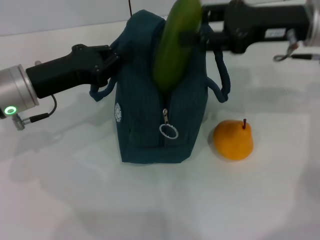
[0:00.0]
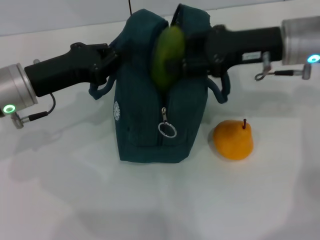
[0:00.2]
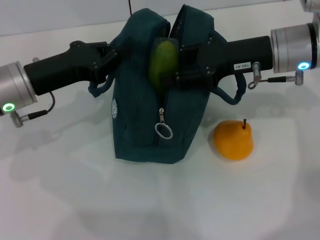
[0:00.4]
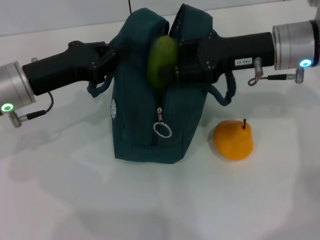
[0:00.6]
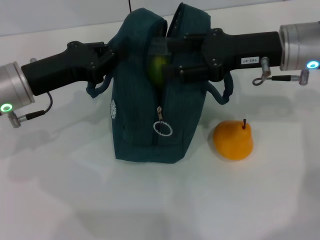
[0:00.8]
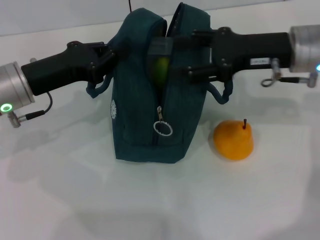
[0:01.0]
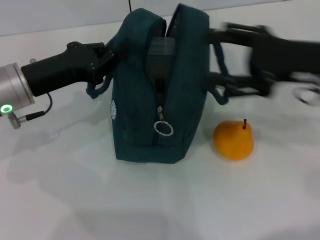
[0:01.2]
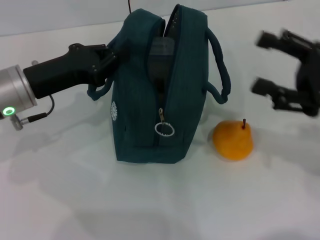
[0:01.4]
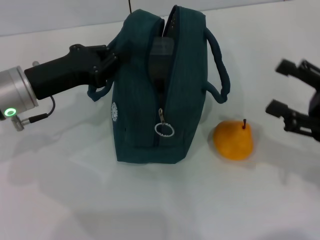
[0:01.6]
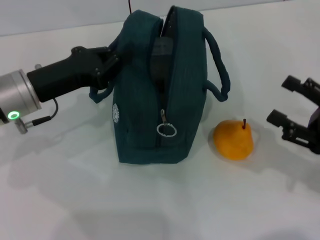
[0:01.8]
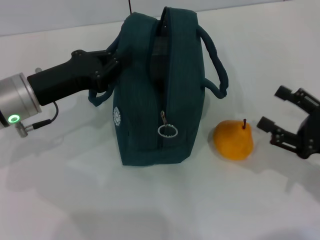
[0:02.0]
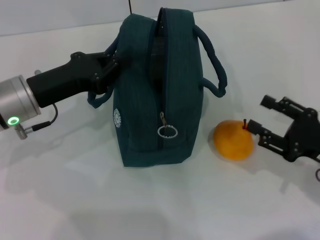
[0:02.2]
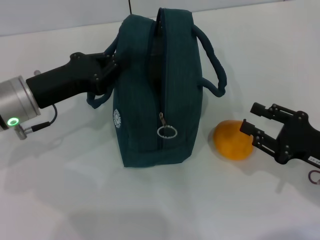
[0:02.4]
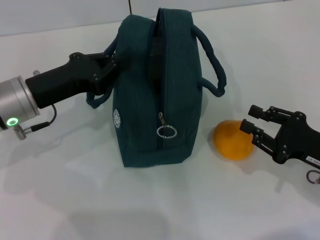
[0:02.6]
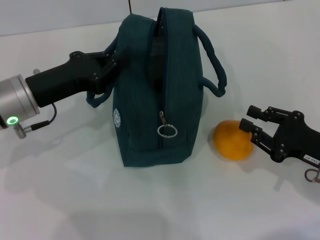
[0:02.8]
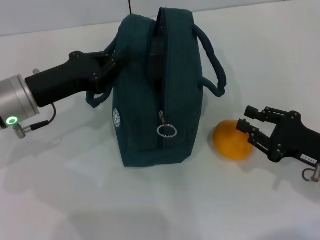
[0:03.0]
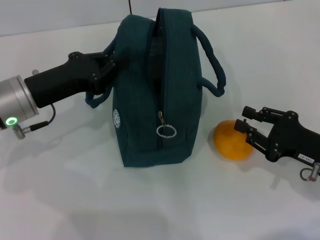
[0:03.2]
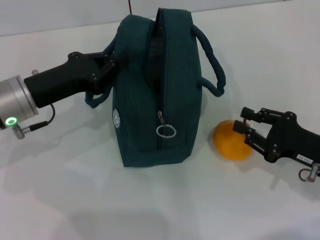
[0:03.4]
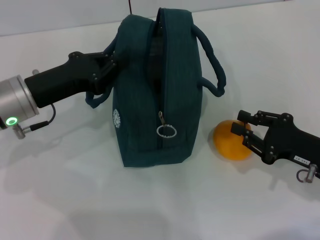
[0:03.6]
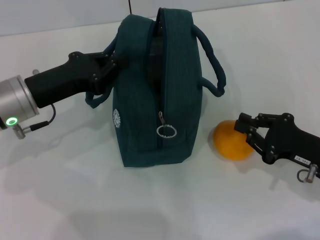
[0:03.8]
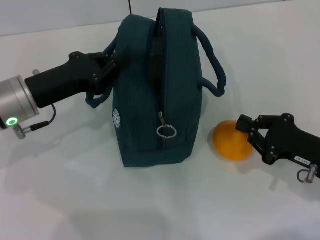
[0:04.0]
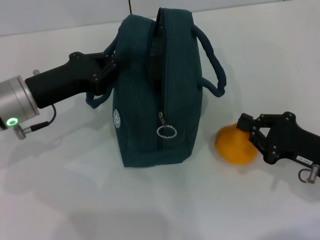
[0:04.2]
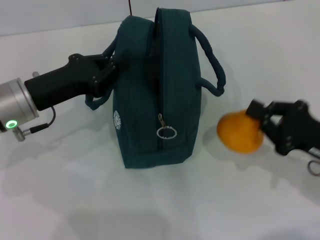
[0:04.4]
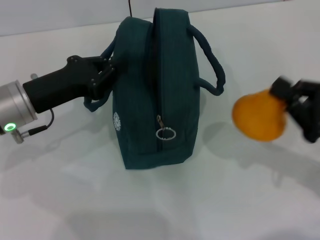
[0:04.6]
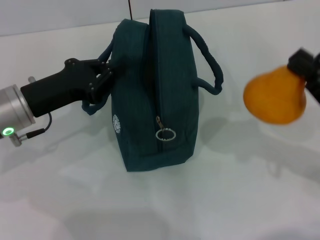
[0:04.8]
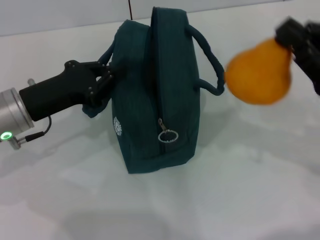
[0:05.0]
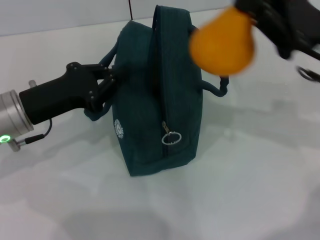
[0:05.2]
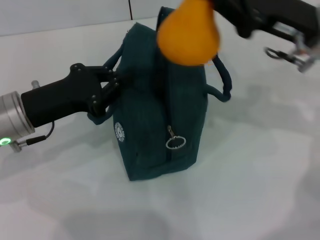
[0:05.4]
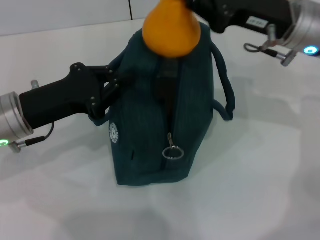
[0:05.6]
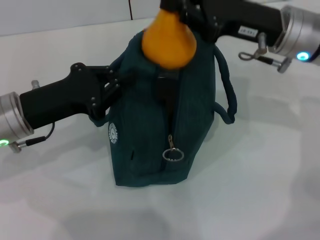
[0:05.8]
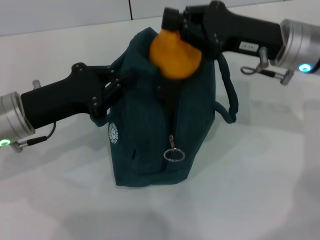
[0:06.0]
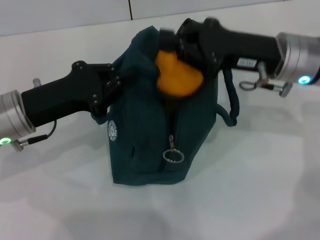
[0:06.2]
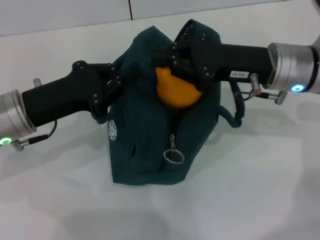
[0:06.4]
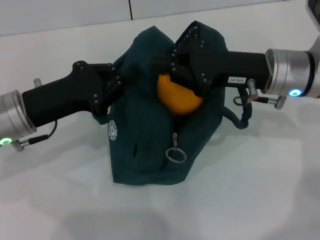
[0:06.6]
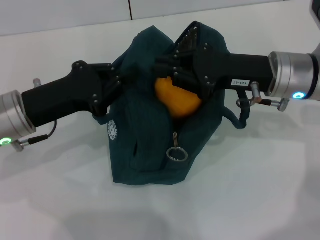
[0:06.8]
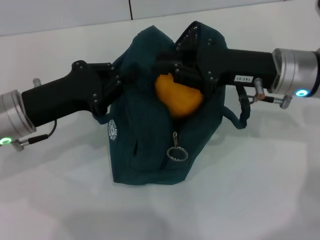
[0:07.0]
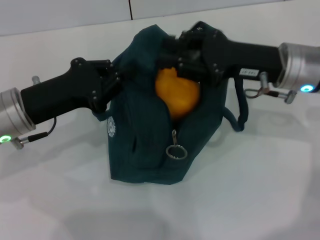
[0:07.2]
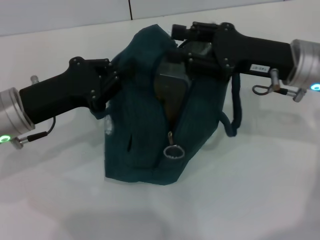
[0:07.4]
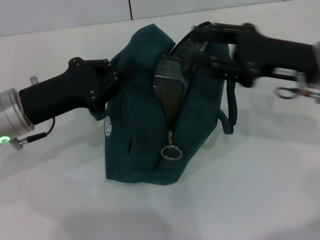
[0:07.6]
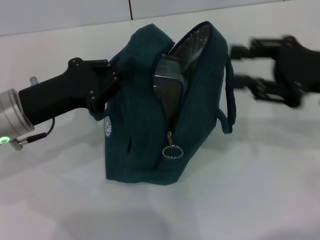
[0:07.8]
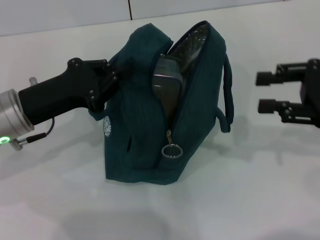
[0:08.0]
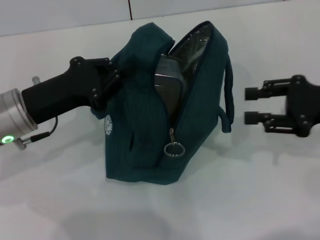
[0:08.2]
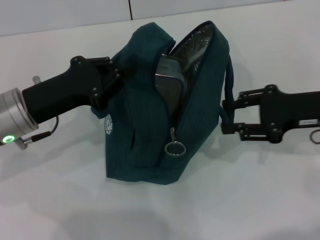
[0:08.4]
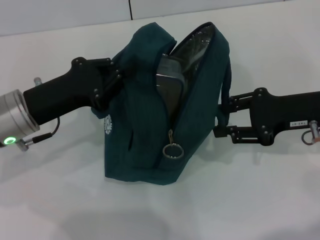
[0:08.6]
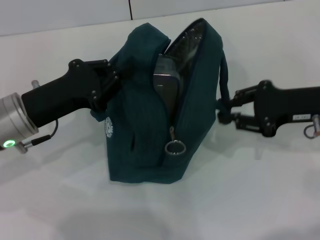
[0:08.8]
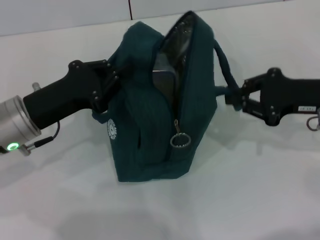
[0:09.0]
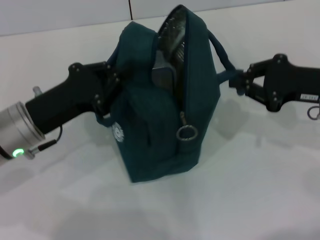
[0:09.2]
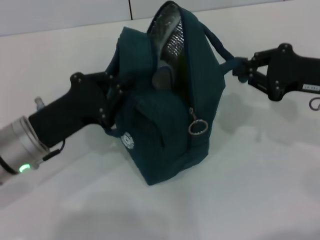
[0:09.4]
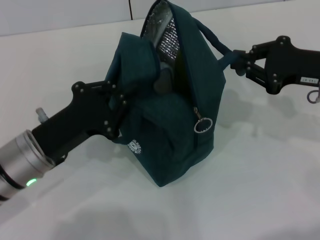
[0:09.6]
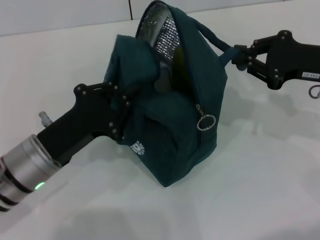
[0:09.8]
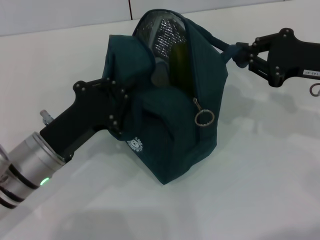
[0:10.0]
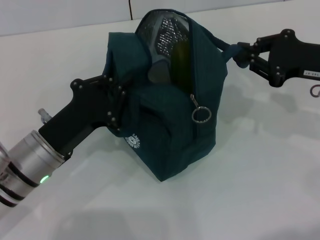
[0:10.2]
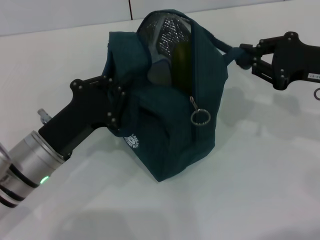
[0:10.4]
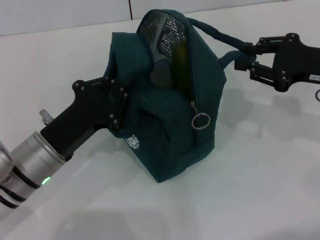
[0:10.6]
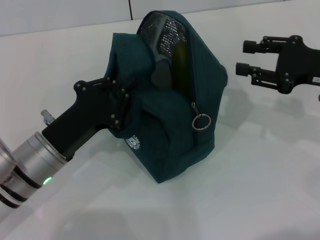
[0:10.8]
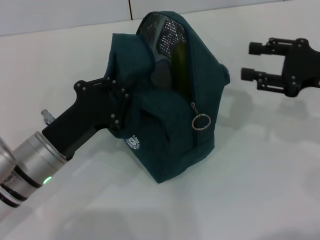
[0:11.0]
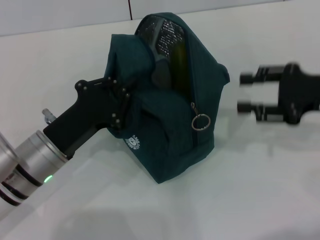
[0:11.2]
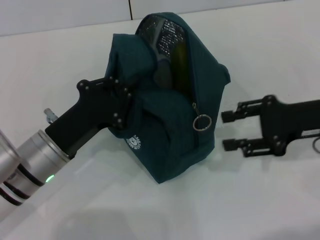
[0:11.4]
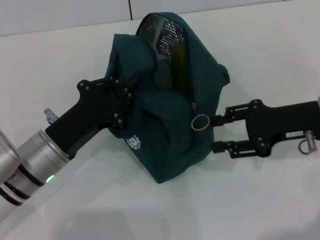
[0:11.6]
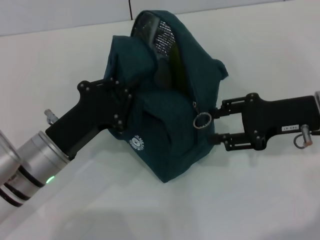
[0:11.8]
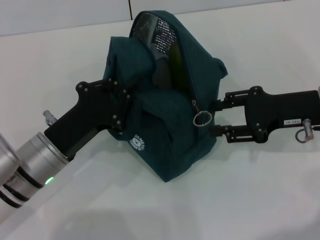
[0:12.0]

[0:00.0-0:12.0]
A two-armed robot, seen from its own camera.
Step, 0:01.0 to 0:03.8: Grab the pear with your right hand.
Step, 0:07.8 to 0:10.6: Hold the lunch bag with your right hand.
0:00.0 to 0:01.6: The right gripper is displaced backward, downward and to the right by roughly 20 cm.
0:01.6 to 0:03.0: The right gripper travels downward by about 5 cm, and closes.
0:03.0 to 0:04.4: The right gripper closes its fingers.
0:04.4 to 0:06.0: The right gripper moves forward, upward and to the left, approximately 20 cm.
0:06.0 to 0:07.6: The right gripper changes place by about 5 cm, and opens its fingers.
0:09.0 to 0:10.4: The left gripper ends up roughly 5 cm from where it was.
0:10.4 to 0:12.0: The right gripper opens.

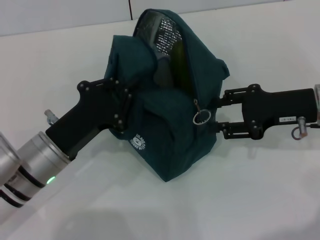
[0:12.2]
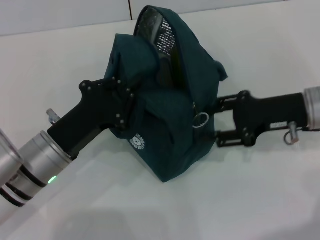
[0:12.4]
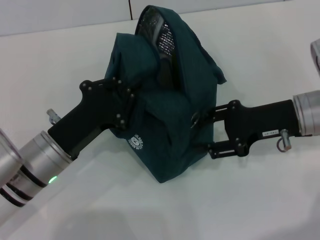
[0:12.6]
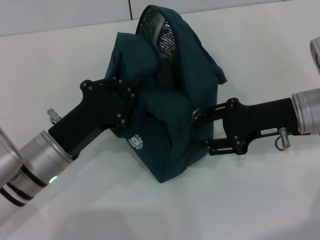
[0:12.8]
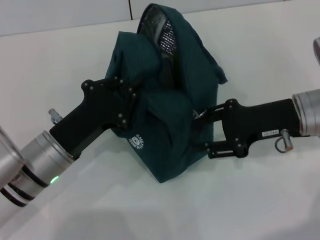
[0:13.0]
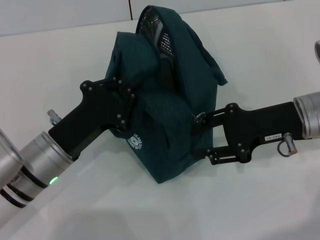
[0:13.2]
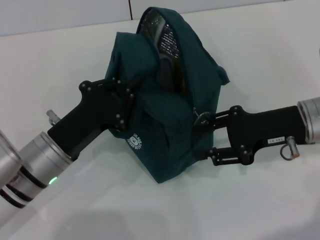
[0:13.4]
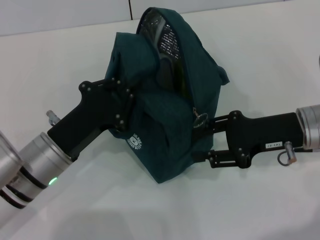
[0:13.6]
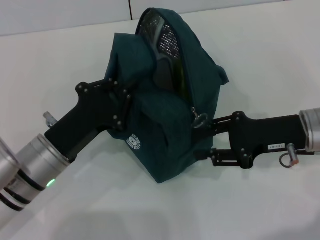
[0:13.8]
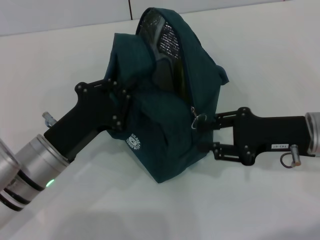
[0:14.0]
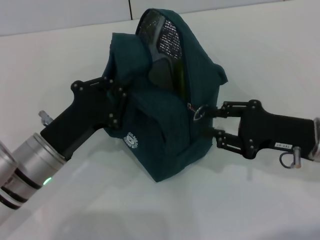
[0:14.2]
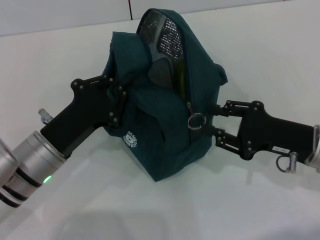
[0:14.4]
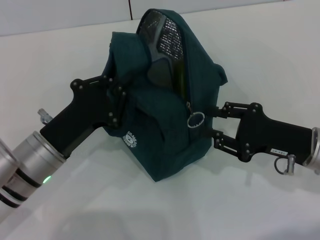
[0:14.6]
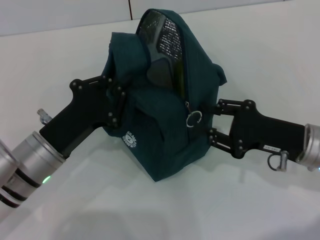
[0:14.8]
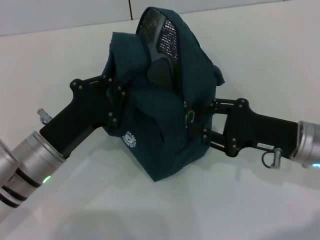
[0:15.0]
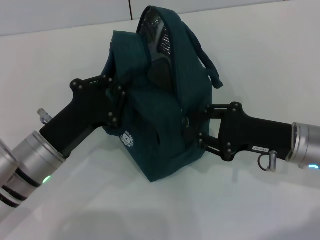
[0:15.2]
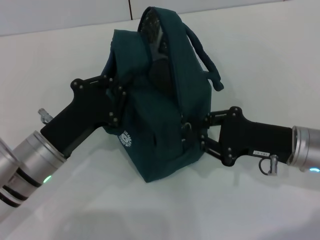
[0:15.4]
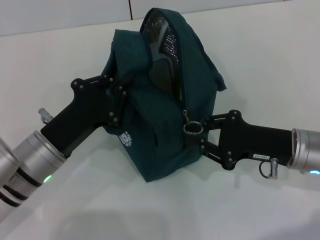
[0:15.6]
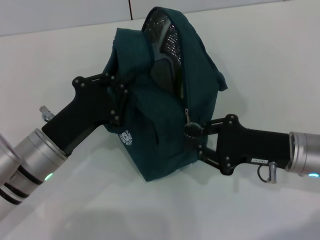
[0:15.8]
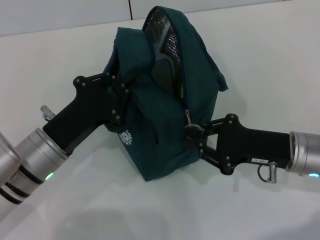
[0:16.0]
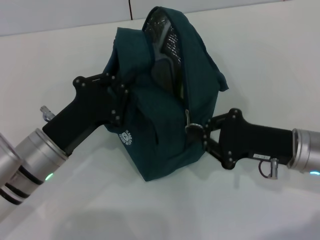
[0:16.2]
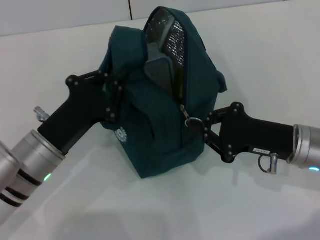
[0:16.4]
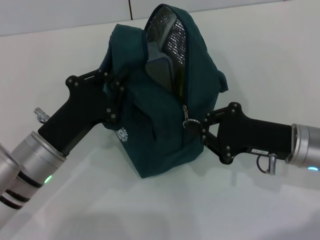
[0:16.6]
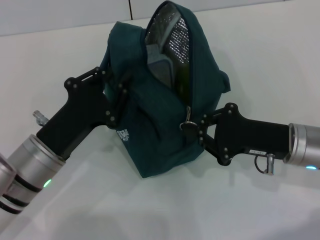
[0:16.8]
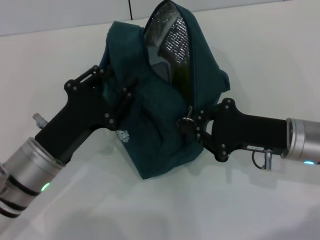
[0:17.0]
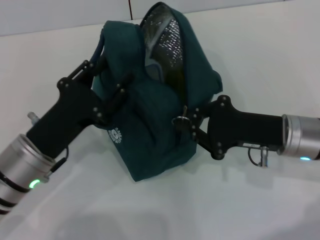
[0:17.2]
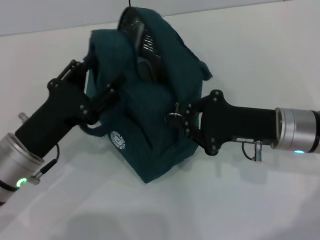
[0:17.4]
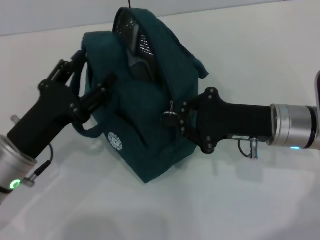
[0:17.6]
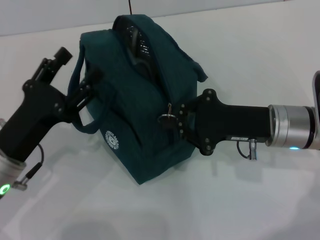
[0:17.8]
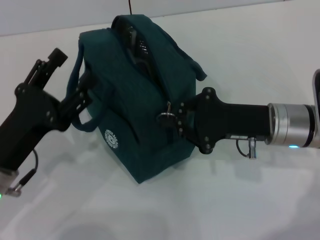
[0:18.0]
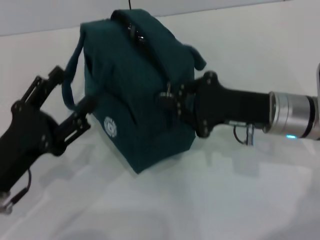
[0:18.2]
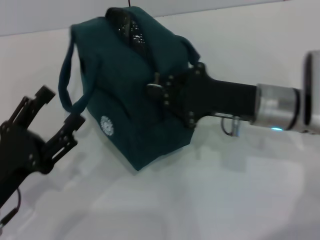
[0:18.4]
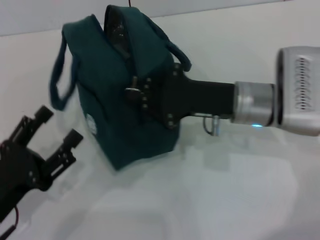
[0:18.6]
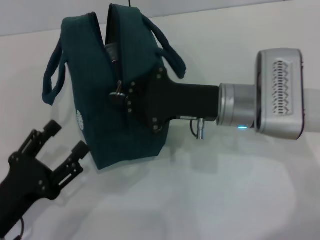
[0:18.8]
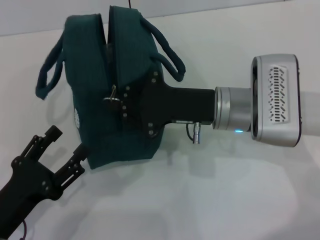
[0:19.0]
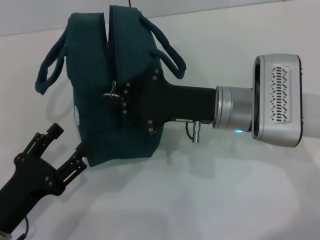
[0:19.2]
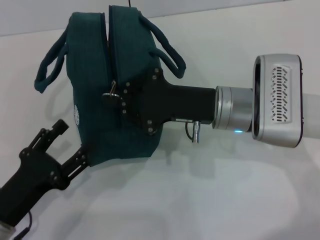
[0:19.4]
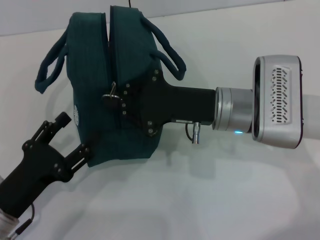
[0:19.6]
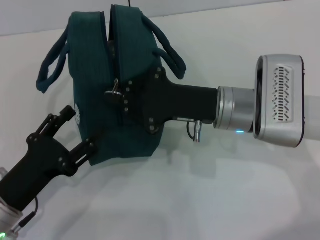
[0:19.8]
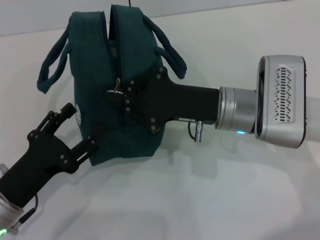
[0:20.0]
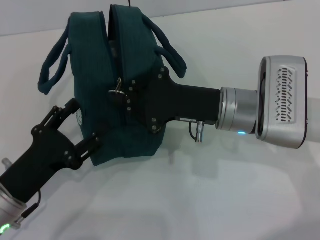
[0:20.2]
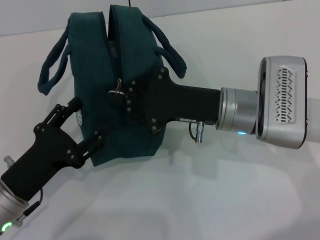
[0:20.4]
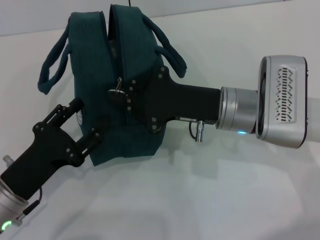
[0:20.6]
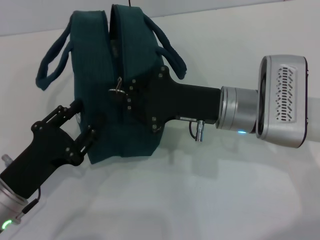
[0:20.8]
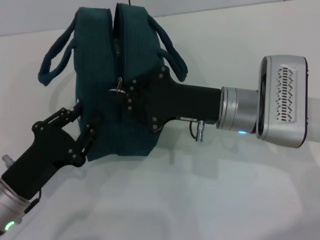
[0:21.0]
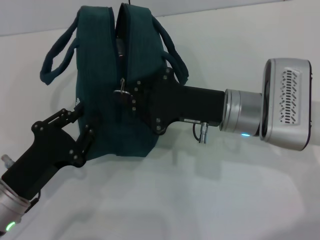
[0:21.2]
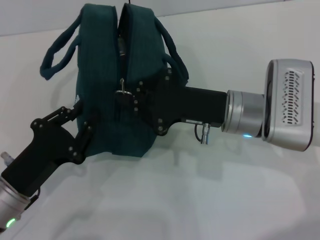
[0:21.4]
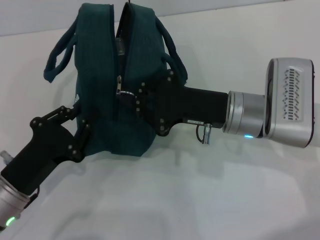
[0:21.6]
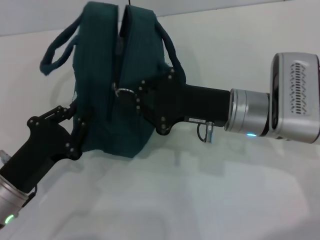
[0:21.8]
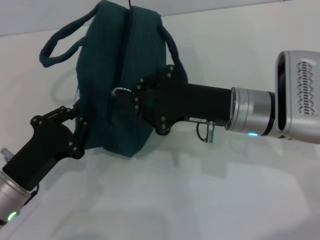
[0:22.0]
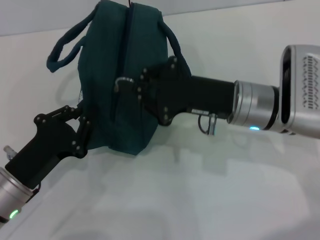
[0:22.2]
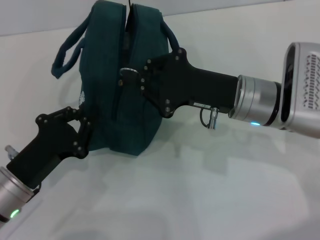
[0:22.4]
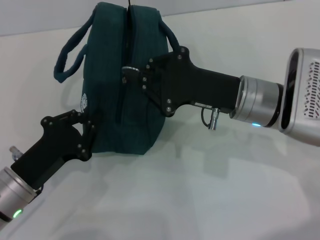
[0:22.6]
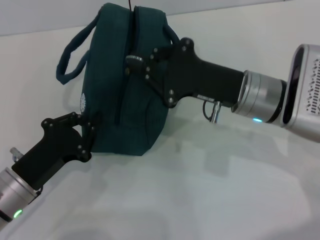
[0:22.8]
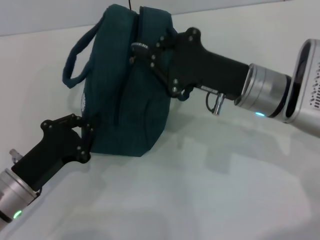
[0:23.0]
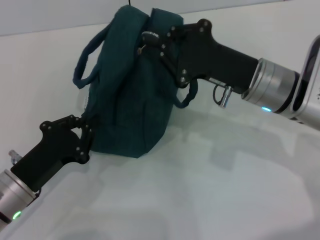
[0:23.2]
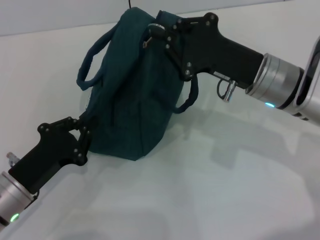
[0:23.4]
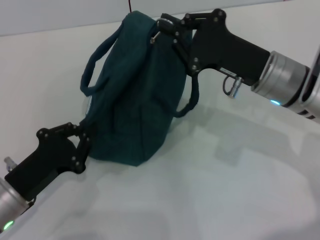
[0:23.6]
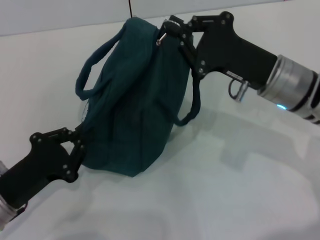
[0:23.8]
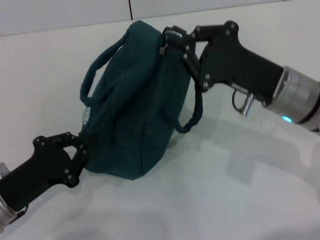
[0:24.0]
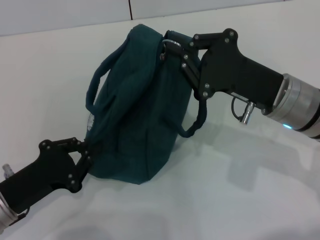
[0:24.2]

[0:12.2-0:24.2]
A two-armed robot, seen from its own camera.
0:12.2 to 0:13.8: The grippers stay close to where they were, moving slightly.
0:15.2 to 0:16.6: The right gripper closes.
0:16.6 to 0:18.2: The left gripper travels to the left by roughly 5 cm, and opens up; the right gripper moves about 5 cm.
0:18.2 to 0:19.8: The right gripper moves to the left, approximately 5 cm.
0:19.8 to 0:21.2: The left gripper closes up.
0:21.2 to 0:22.6: The grippers move only a little.
